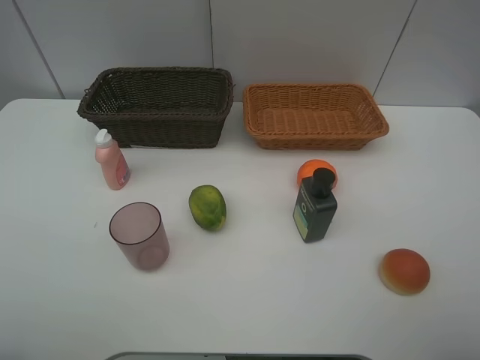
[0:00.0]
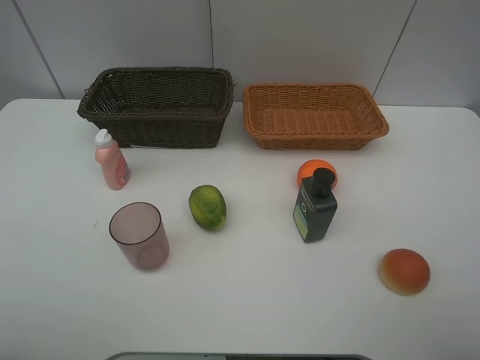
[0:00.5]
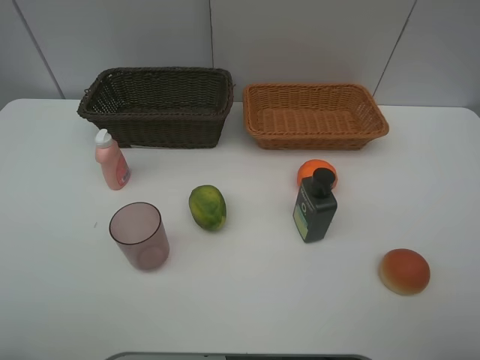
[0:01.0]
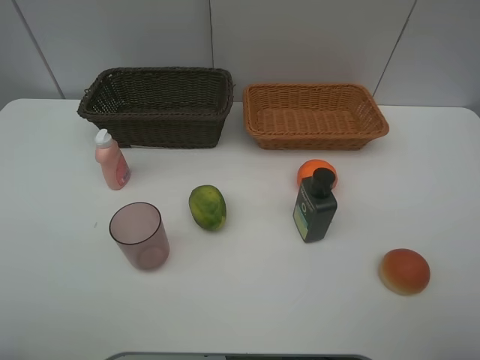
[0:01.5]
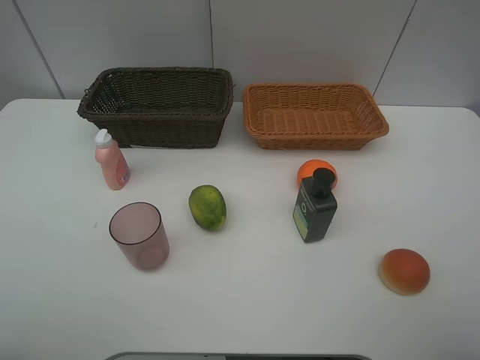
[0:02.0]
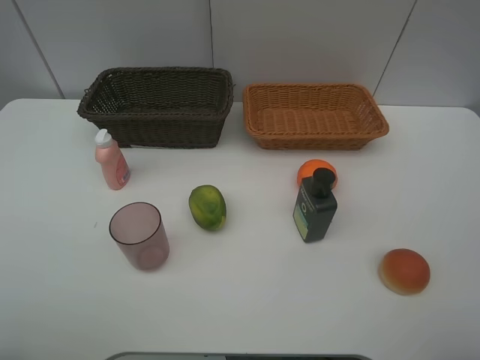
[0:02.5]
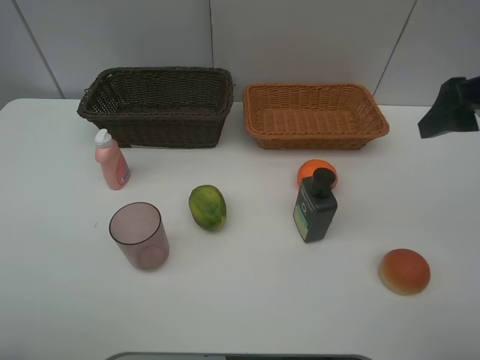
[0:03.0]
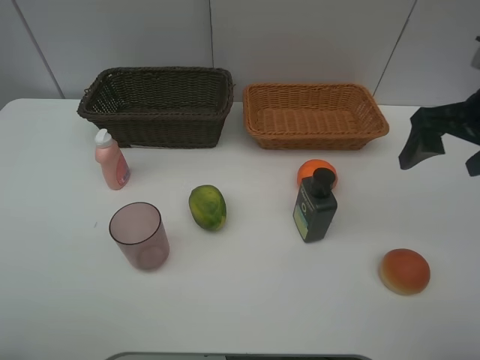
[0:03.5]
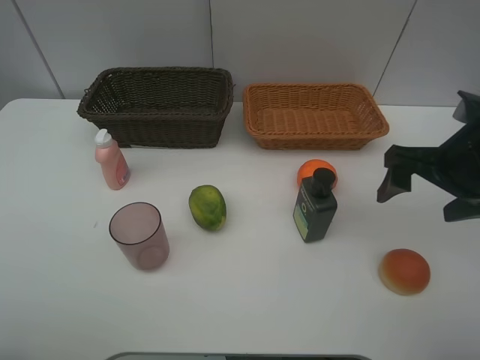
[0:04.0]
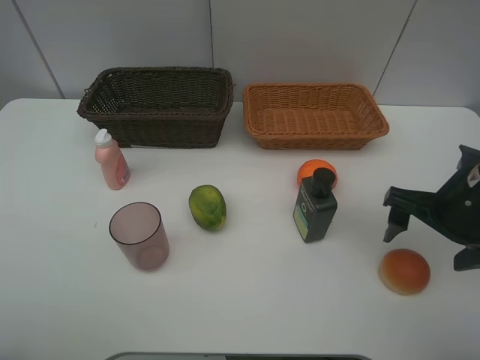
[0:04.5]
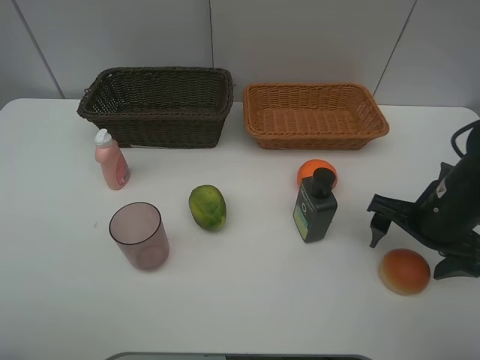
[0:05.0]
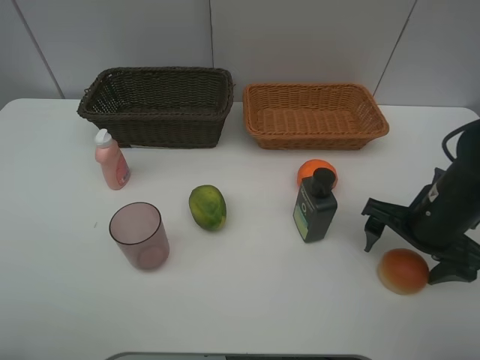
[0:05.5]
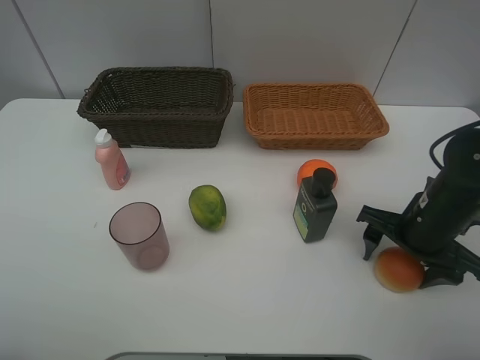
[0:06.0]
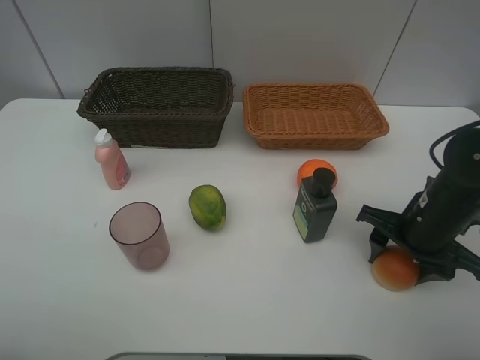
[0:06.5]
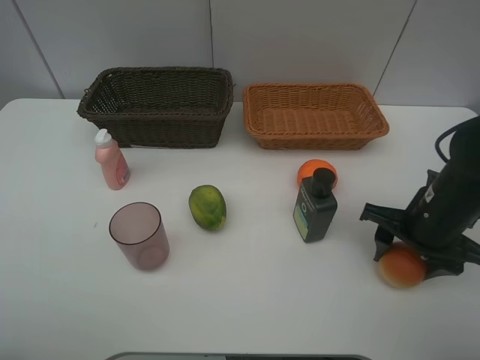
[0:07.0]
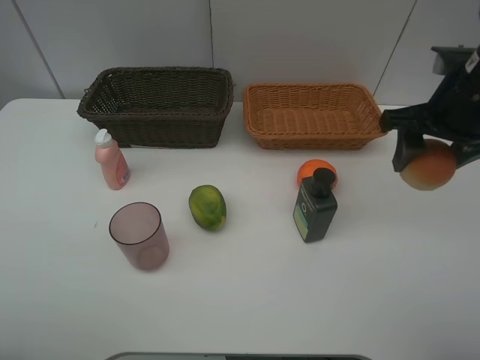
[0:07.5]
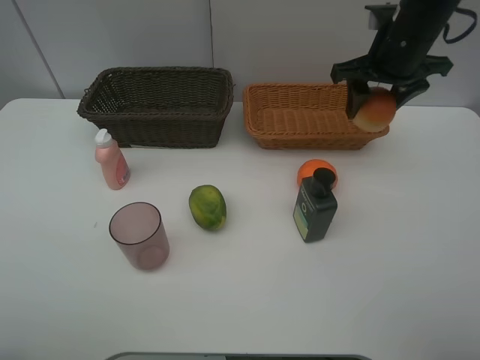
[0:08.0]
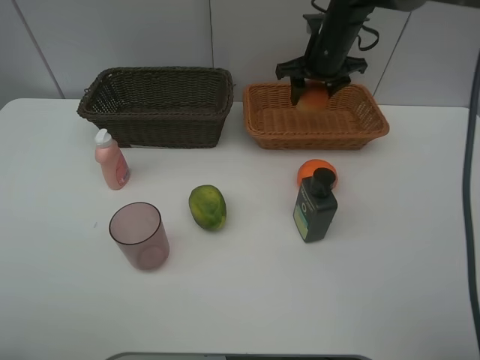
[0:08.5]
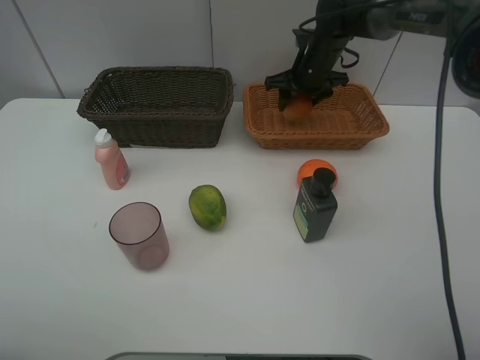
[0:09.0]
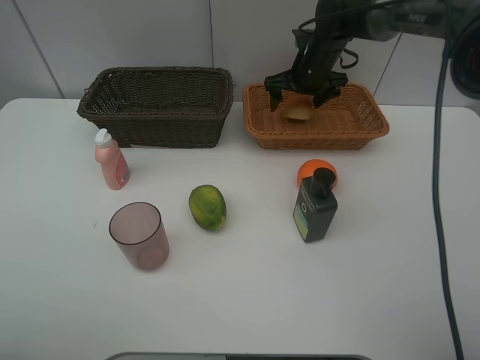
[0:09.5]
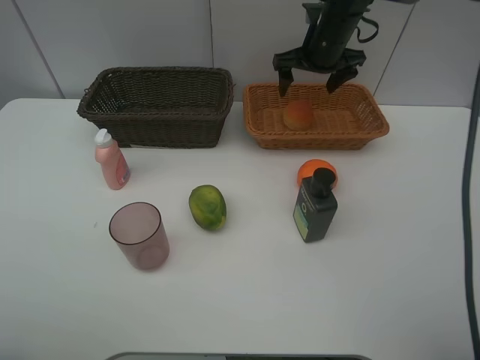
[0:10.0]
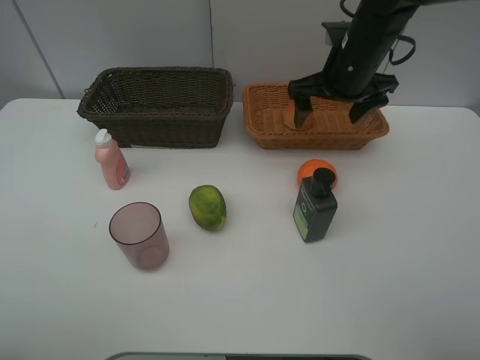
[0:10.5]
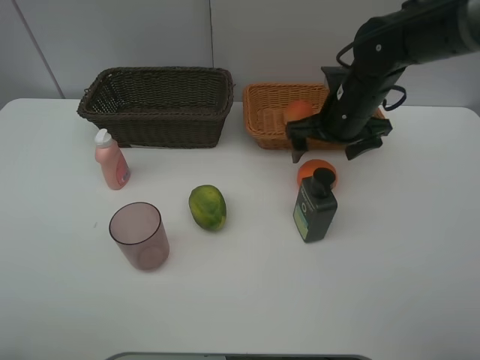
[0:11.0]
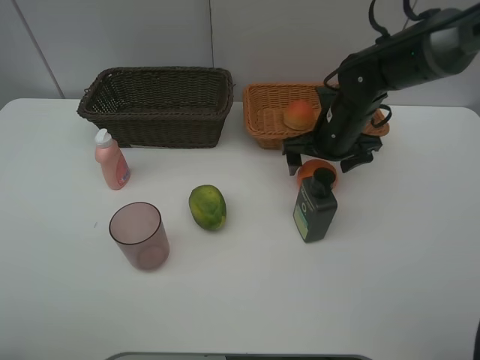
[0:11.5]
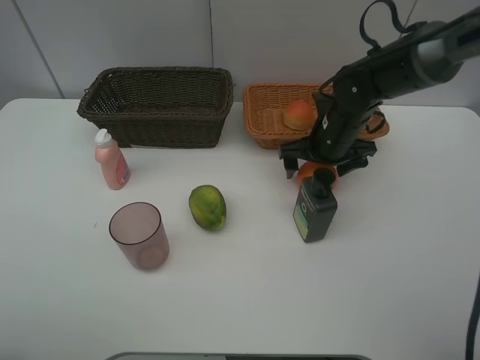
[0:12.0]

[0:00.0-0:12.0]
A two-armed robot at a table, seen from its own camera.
Task of the whole recording: place multiple objects separately in different baskets.
0:02.0 to 0:04.0: The right gripper is displaced forward and downward by approximately 20 cm.
0:04.0 to 0:06.0: The right gripper travels downward by some 10 cm.
0:06.0 to 0:08.0: The right gripper goes about 25 cm forward and upward.
0:08.0 to 0:10.0: The right gripper moves forward and to the left, about 10 cm, and opens.
0:10.0 to 0:12.0: The right gripper travels backward and downward by some 15 cm.

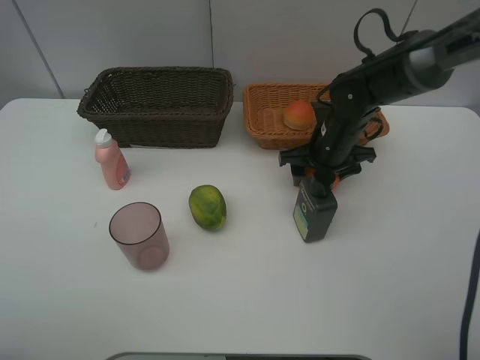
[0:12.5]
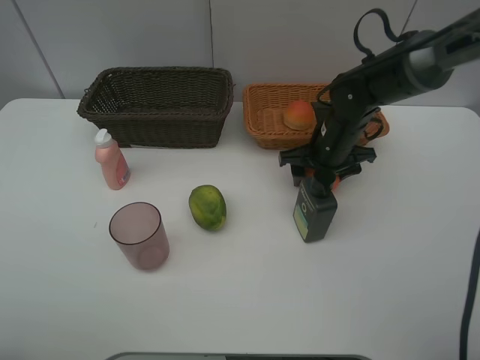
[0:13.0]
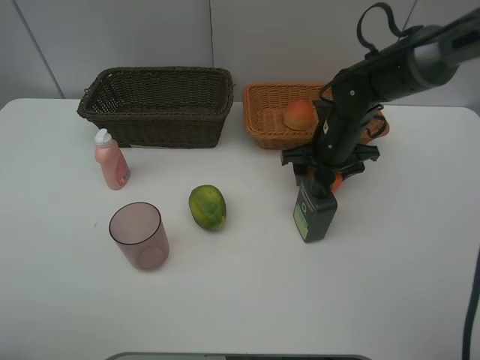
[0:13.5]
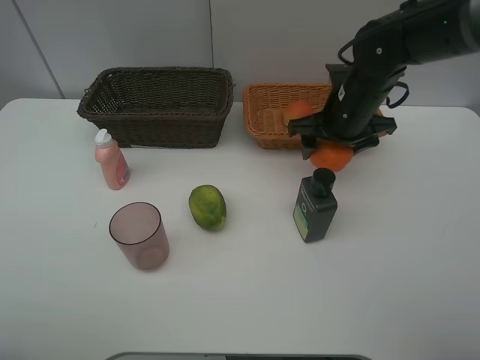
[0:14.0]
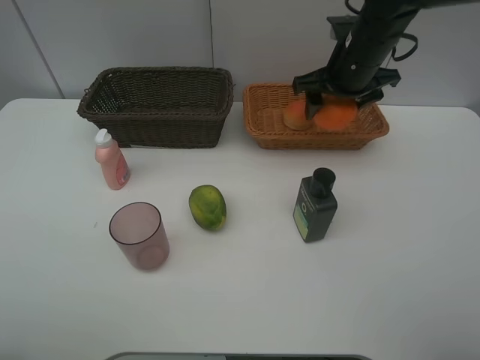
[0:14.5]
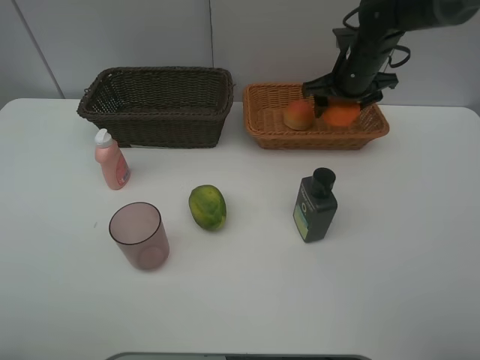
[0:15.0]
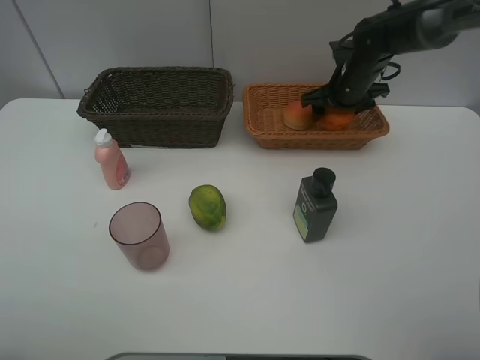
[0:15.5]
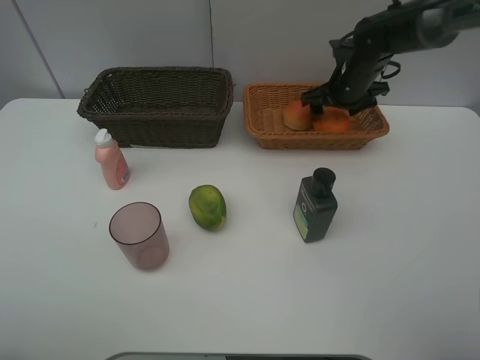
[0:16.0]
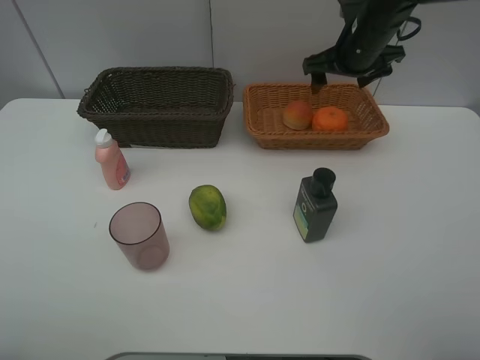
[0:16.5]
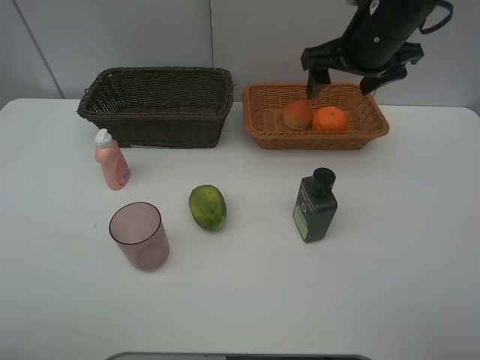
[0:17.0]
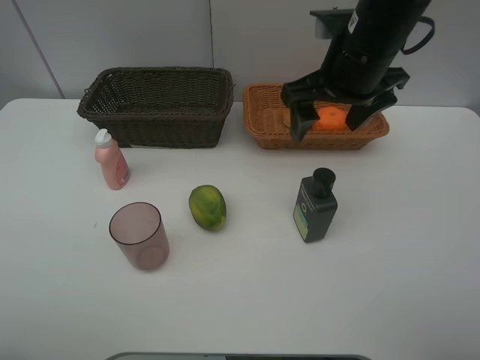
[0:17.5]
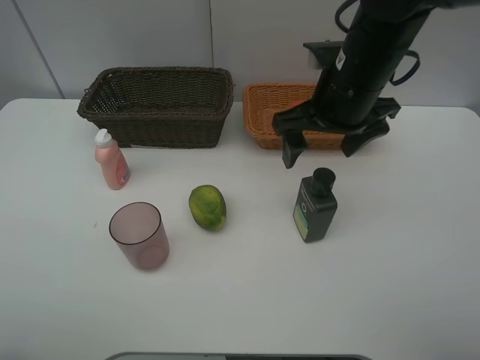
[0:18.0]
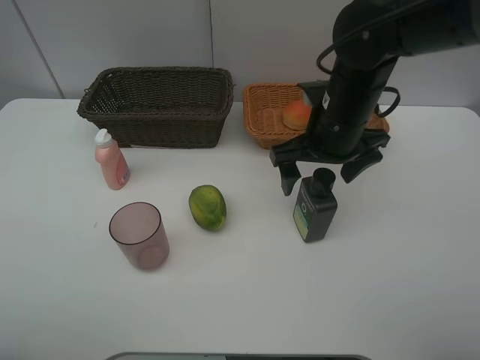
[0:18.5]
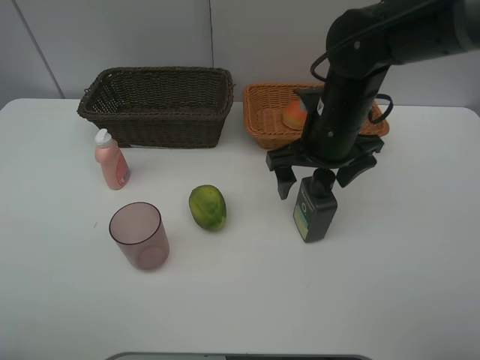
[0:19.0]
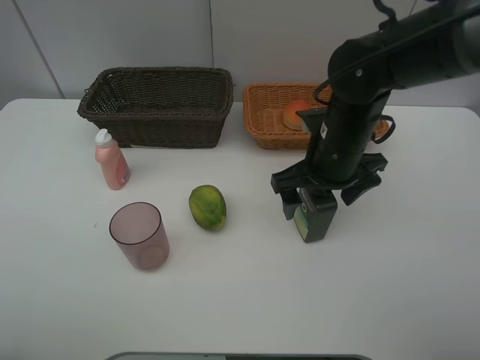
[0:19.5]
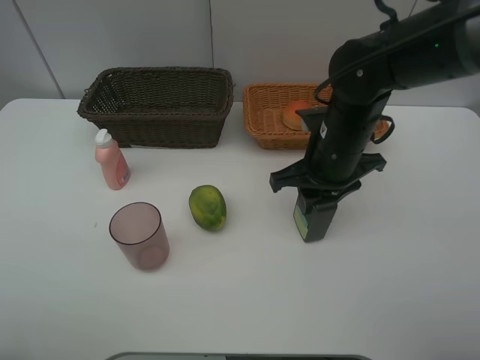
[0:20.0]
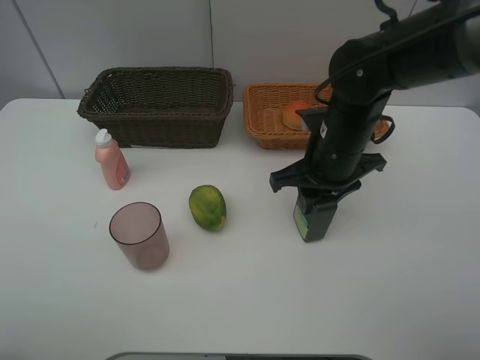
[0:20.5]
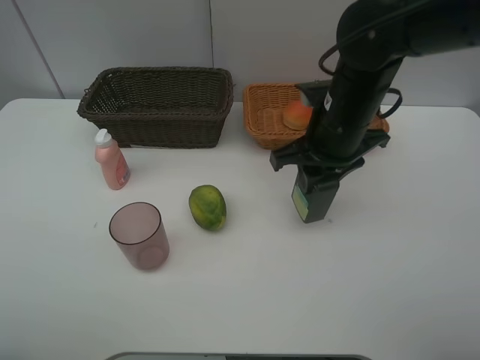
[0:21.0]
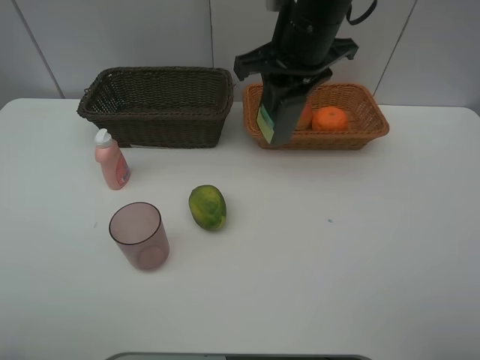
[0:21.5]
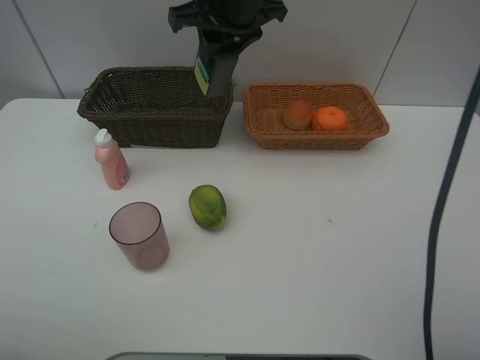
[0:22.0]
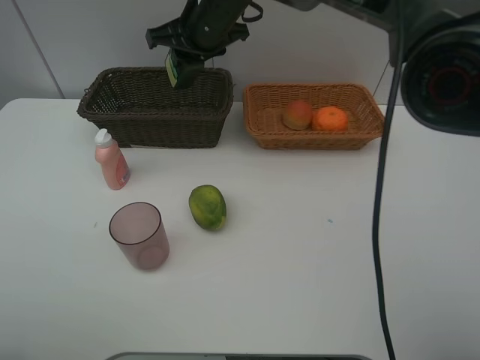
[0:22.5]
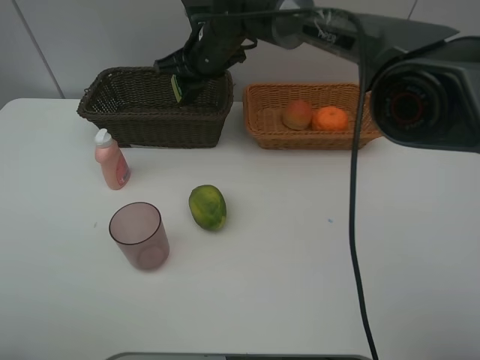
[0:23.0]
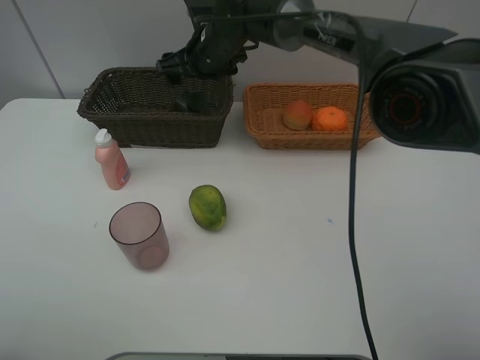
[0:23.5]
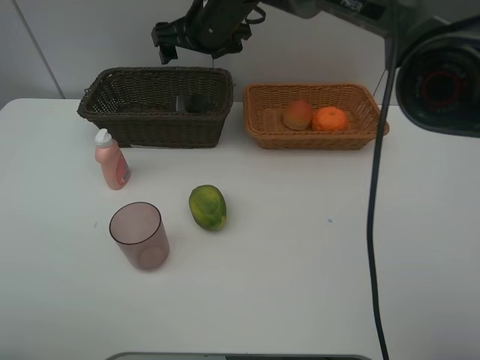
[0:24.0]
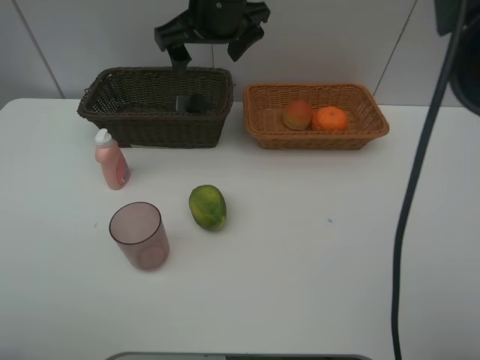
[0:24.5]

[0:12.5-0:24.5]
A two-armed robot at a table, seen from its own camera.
Task of the whole recording: place multiple objects separately in different baskets.
0:12.5 to 0:14.5: The right gripper moves upward, approximately 10 cm.
0:14.5 to 0:16.5: The right gripper reaches roughly 5 cm downward, then returns.
0:16.5 to 0:18.5: The right gripper is displaced backward and to the left by approximately 15 cm.
0:18.5 to 0:20.5: The right gripper closes.
0:20.5 to 0:22.5: The right gripper goes about 25 cm to the left, forward and upward.
0:22.5 to 0:24.5: The right gripper moves backward, approximately 5 cm, and opens.

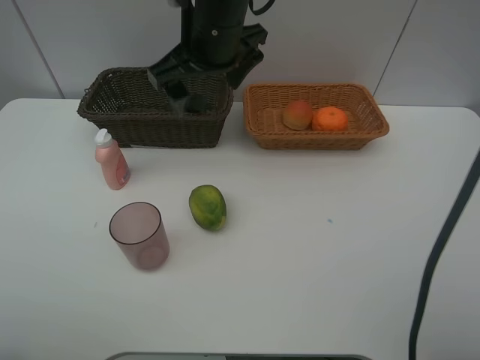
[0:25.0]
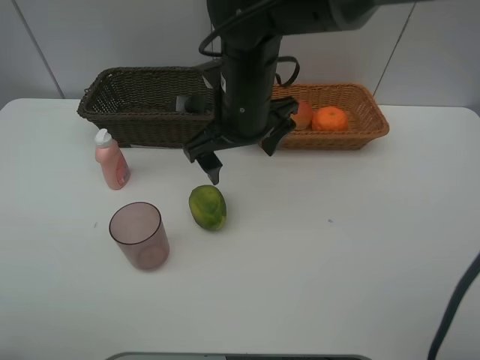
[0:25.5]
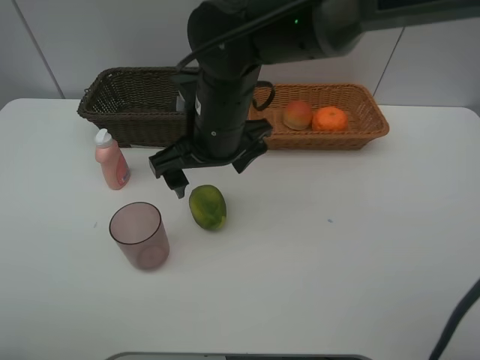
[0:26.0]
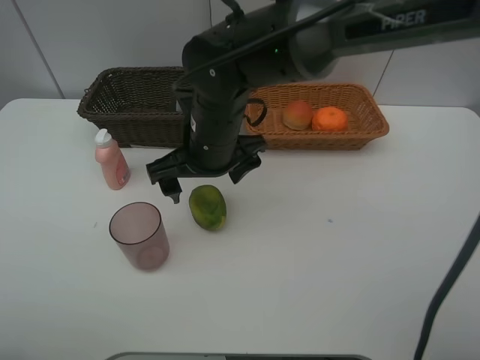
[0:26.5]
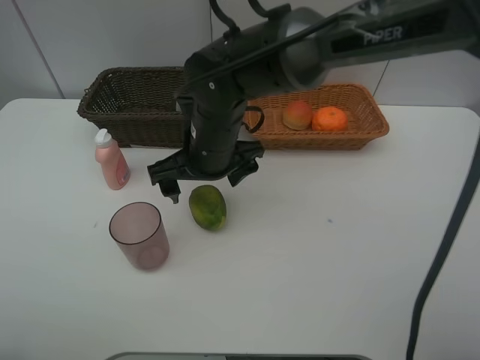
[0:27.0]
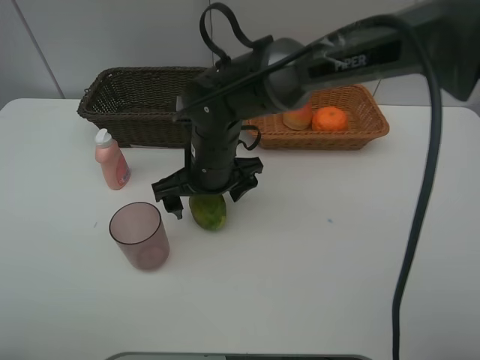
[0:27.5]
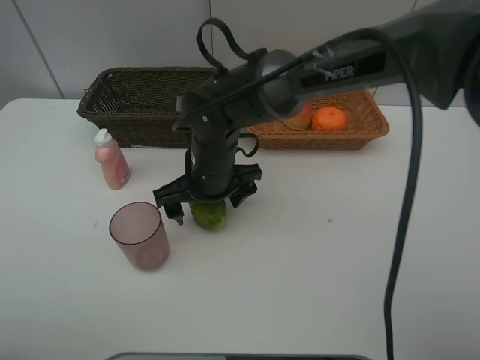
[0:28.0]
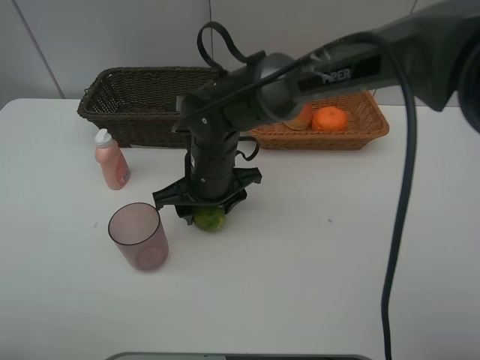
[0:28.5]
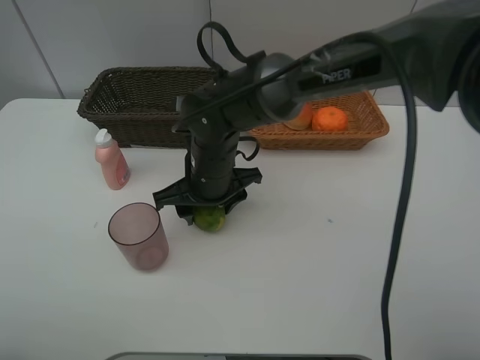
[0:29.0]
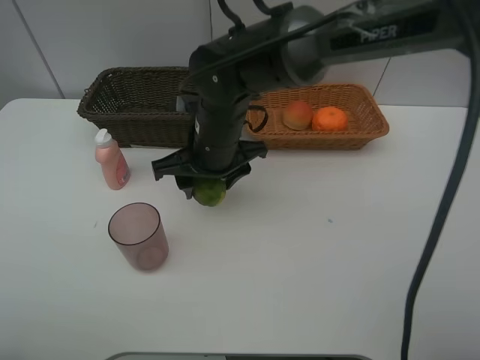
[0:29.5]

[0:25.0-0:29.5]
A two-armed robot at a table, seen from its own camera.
Task of the whole recording: place multiple objects separately in different baskets.
0:25.0 to 0:27.0: The right gripper is displaced downward by some 10 cm.
0:27.0 to 0:29.5: The right gripper closes.
